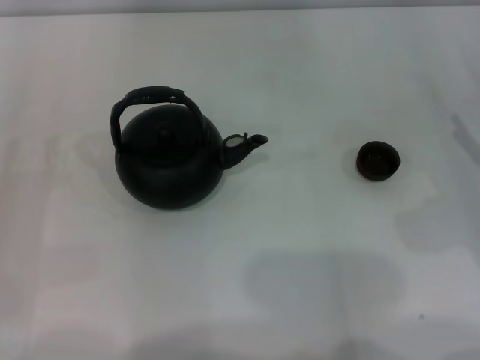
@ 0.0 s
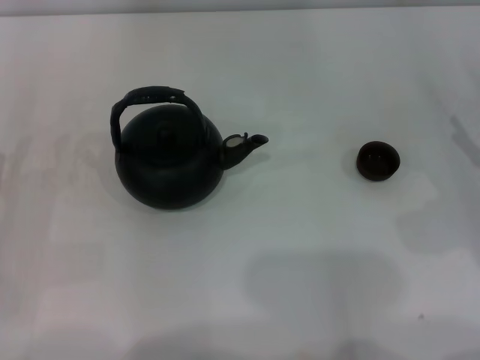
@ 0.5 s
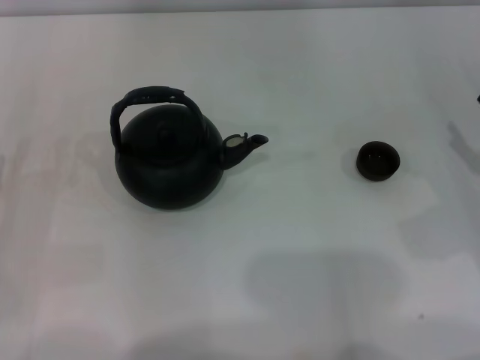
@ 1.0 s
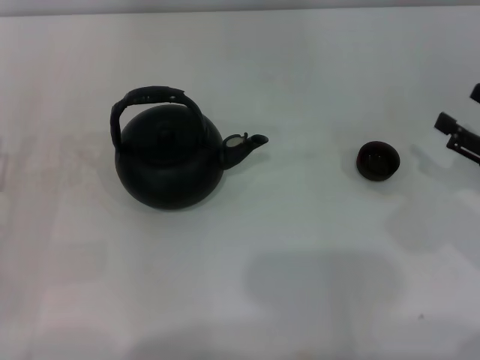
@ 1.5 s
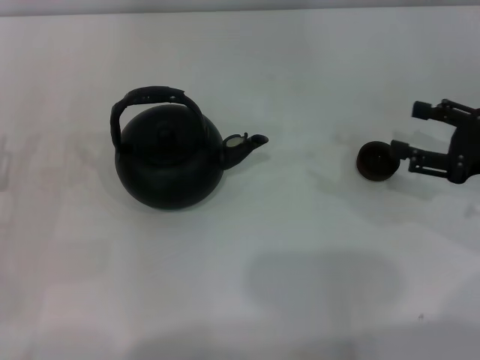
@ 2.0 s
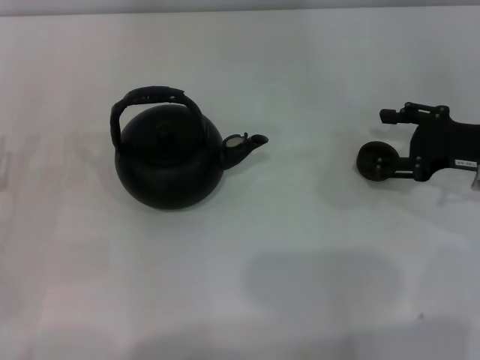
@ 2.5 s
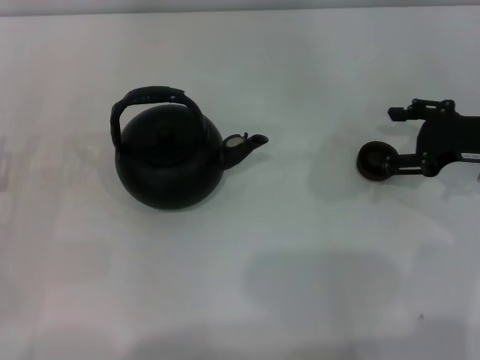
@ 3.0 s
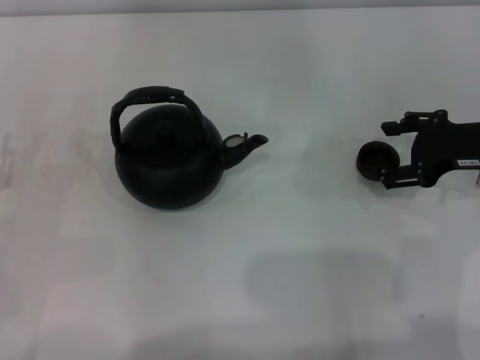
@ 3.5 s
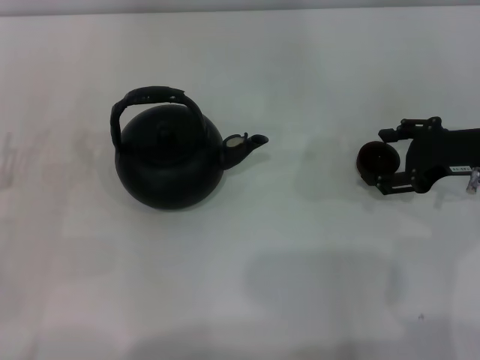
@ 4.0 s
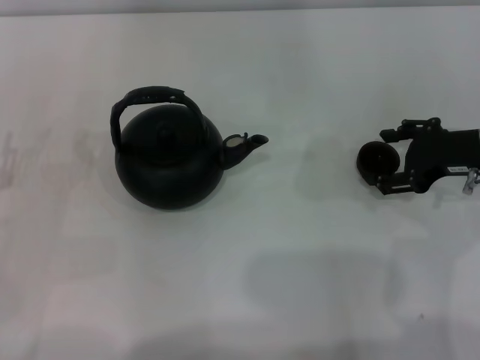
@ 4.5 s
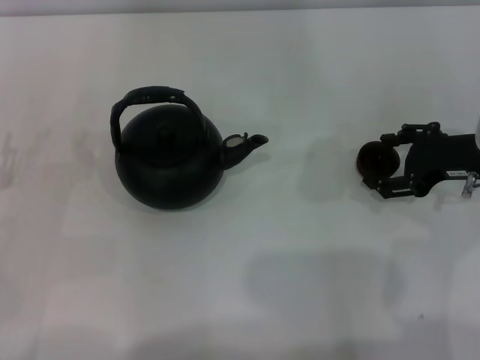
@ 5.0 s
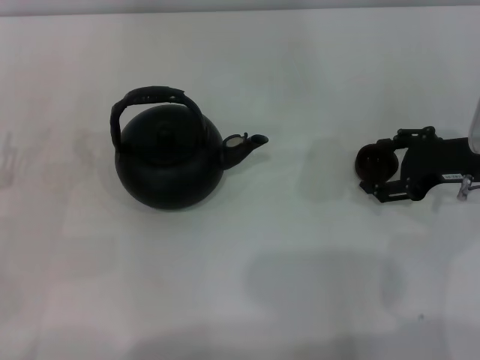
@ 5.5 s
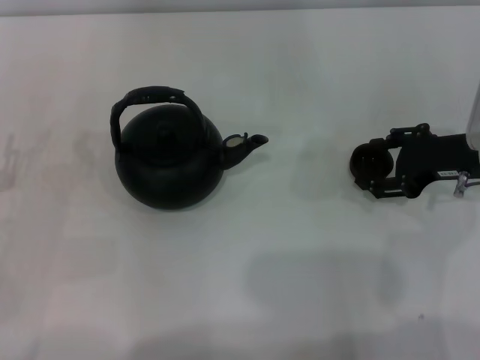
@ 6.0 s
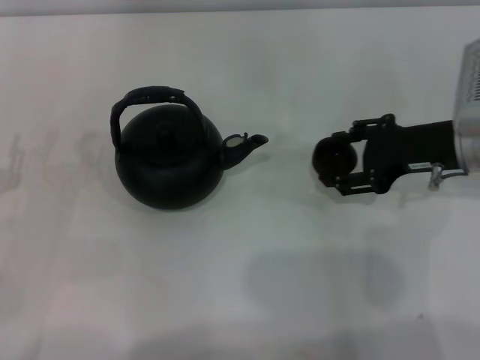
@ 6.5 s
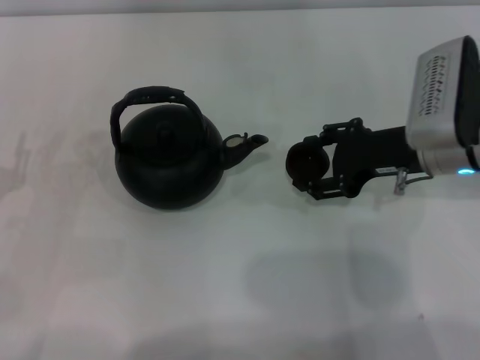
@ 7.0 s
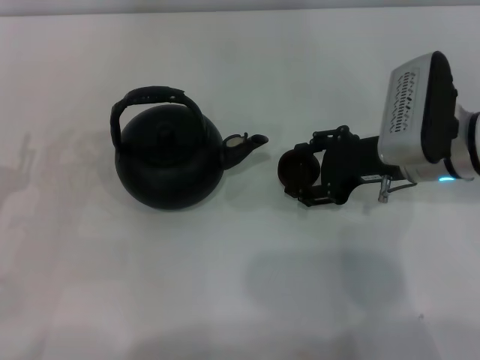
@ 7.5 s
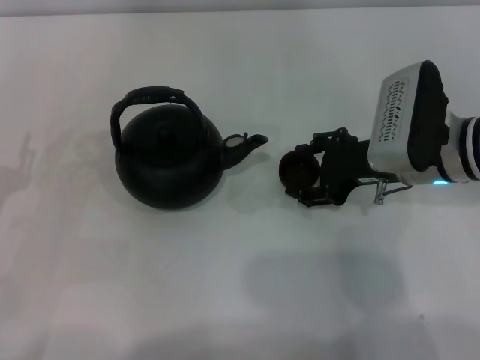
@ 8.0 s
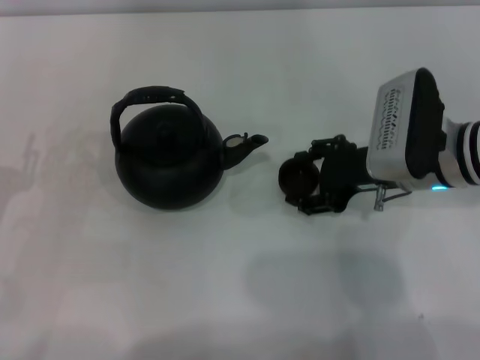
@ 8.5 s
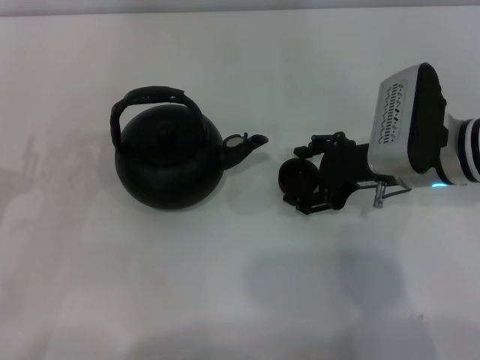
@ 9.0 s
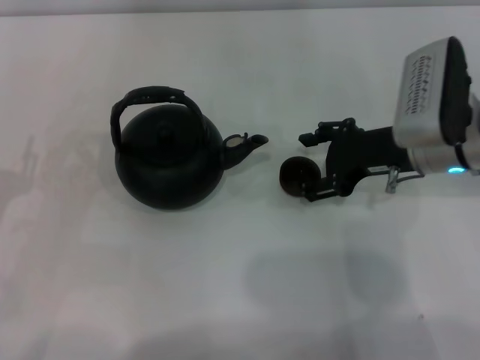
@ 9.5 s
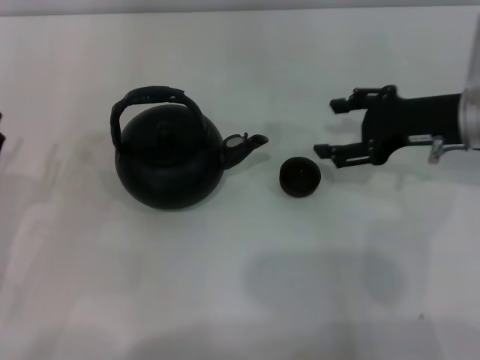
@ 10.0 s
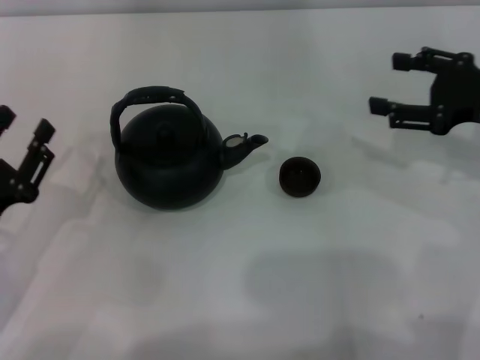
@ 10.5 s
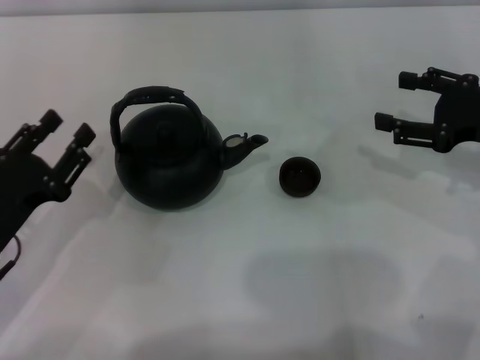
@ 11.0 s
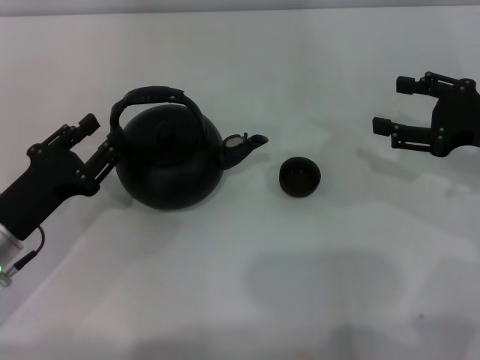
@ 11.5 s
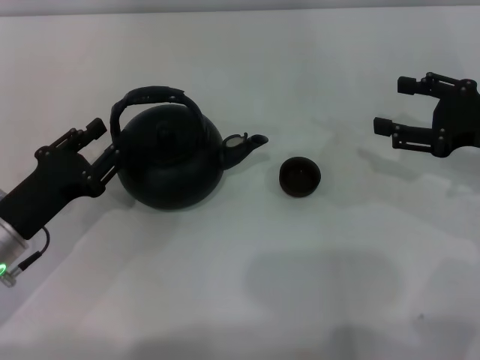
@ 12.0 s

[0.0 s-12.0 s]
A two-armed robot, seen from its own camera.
Task of the whole recording: Grasp the handle of the teapot with one hand and pour tea into the teacup.
Step, 0.0 to 6.0 s: Pick up the teacup with the right gripper.
Step, 6.5 to 10.0 s: Place the teacup in the center of view with the right gripper.
0.0 to 2.0 s: The right gripper changes place by roughly 5 cm.
2.0 to 4.0 s: The right gripper changes place by approximately 5 cm.
4.0 to 6.0 s: The grippers stay close to where they were, moving slightly.
6.0 to 8.0 s: The right gripper is displaced to the left by about 10 cm.
8.0 to 10.0 s: The right gripper heads to the right, covering some 5 cm.
10.0 to 12.0 s: The left gripper ends up roughly 5 cm from where it was, while the right gripper goes approximately 5 cm to the right.

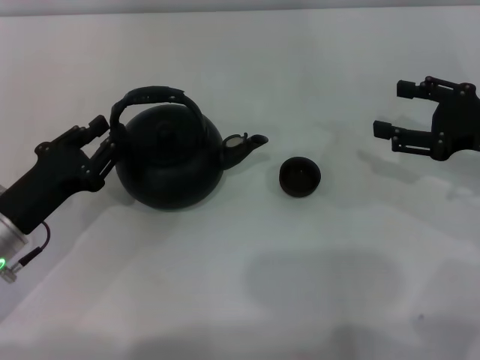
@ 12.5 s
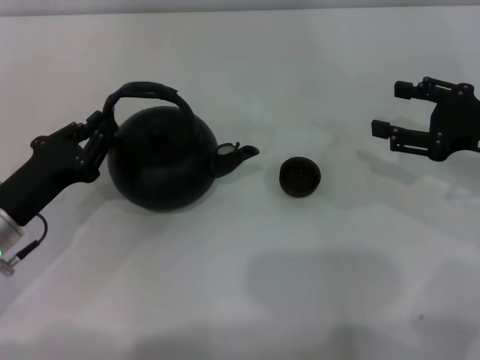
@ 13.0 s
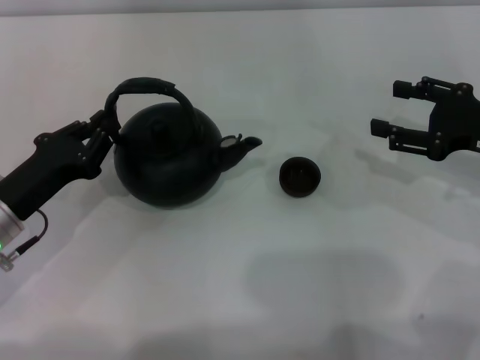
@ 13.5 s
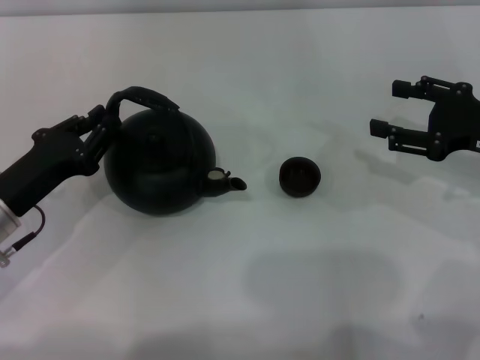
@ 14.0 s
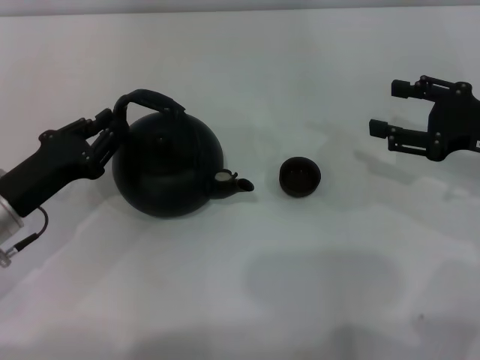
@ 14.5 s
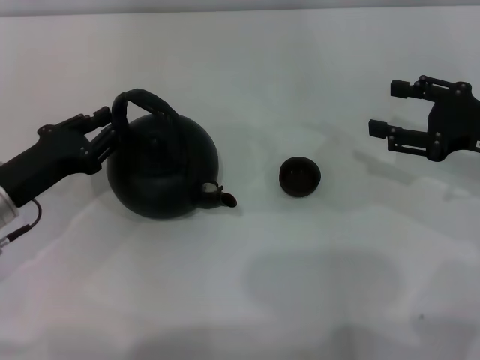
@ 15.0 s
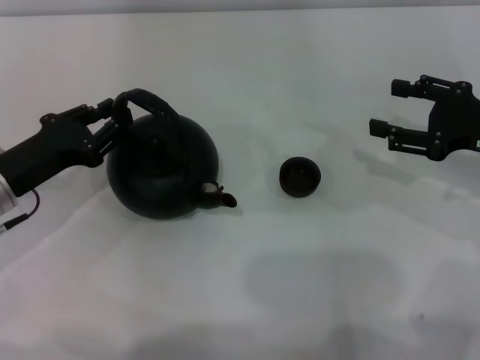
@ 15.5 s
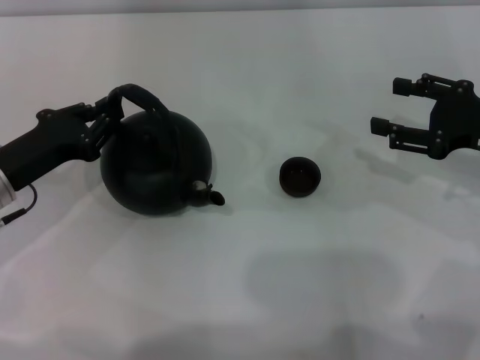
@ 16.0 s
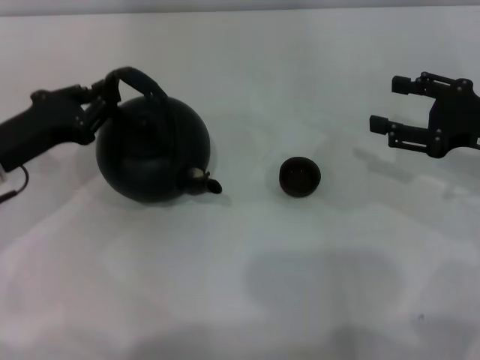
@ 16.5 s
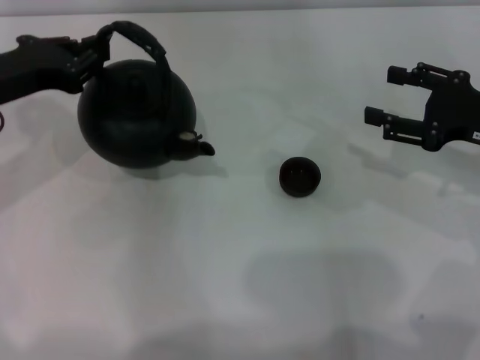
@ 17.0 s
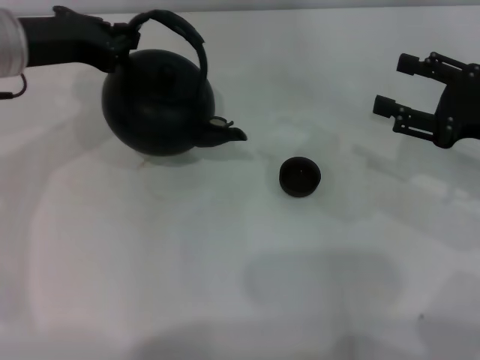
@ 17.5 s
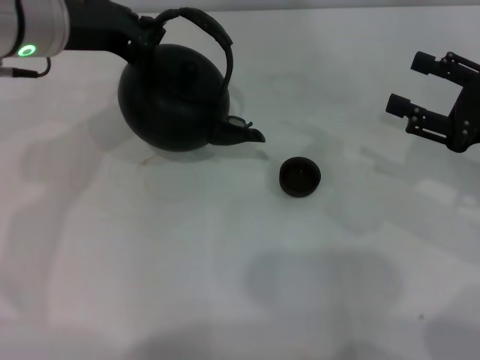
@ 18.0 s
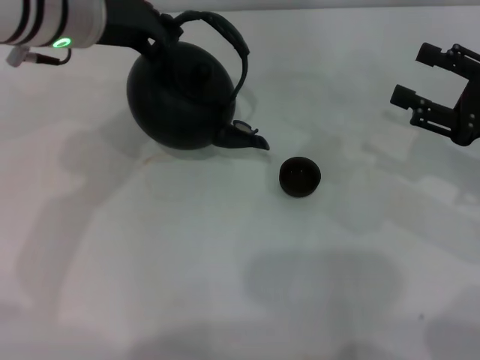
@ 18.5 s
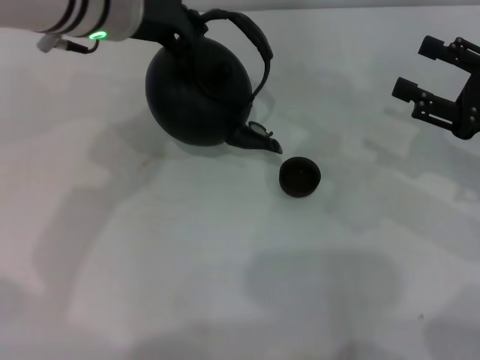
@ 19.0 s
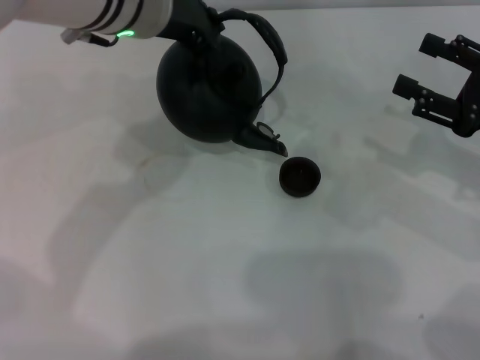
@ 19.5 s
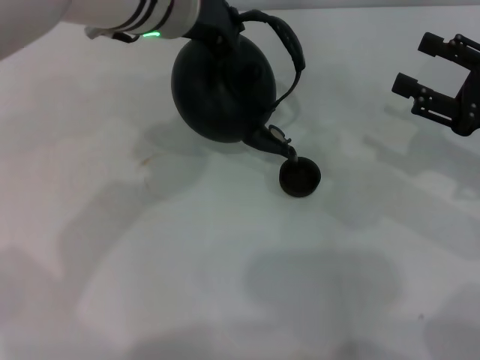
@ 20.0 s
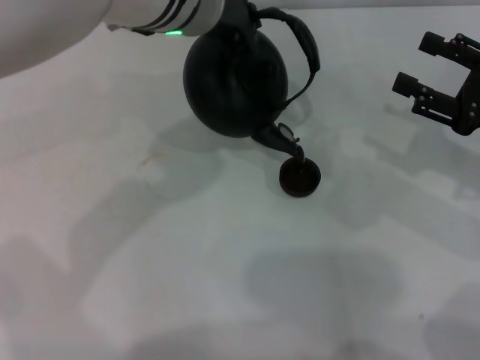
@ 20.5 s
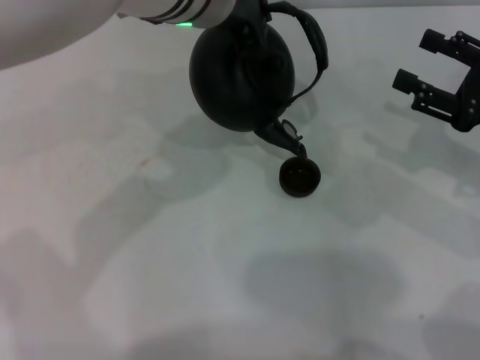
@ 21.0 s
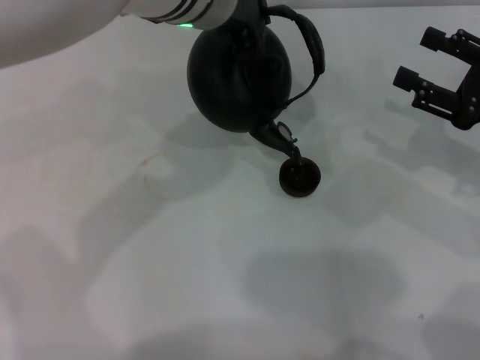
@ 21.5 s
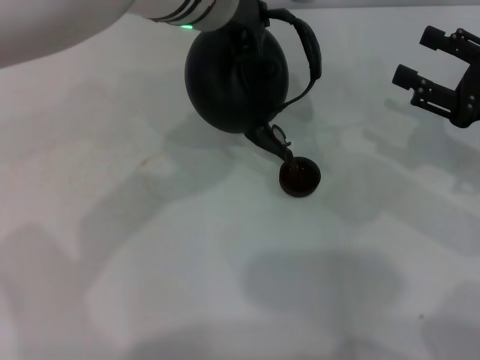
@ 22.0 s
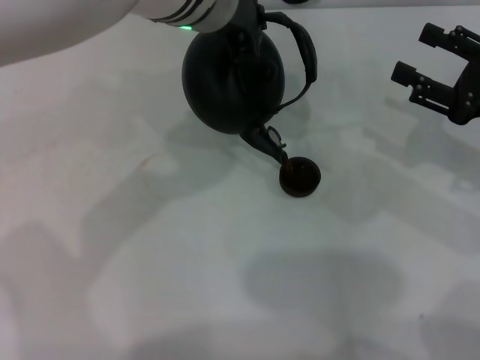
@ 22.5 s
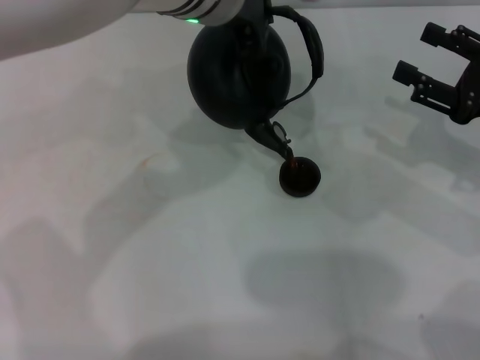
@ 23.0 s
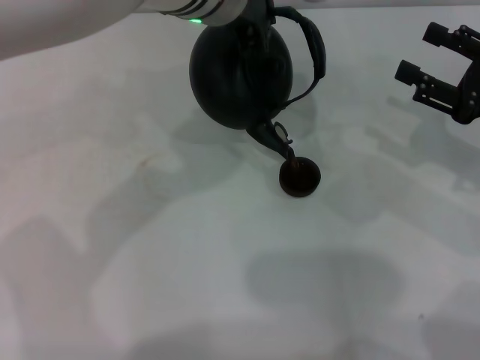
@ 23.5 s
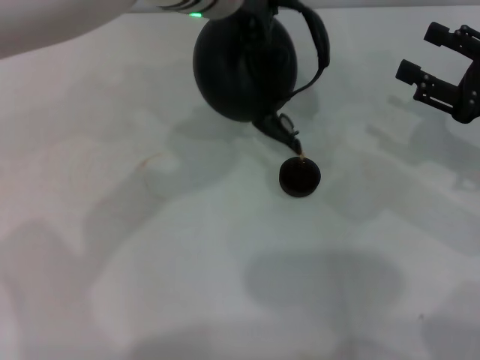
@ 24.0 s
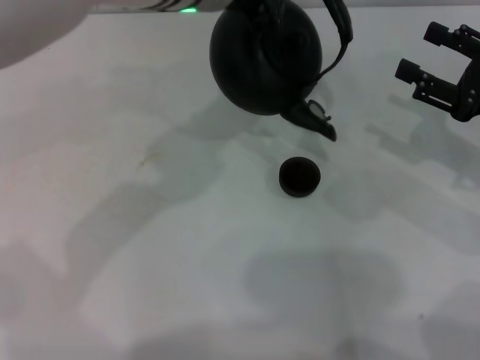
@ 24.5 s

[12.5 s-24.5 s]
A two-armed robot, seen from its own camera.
Task of the whole recording: Grasp the handle of the teapot with one hand and pour tea into the teacup.
Step, 12.5 to 17.5 s: Pick up the teapot with the left gripper.
12.5 to 14.5 s: The left gripper closes up.
14.5 to 16.5 s: The left gripper changes place by some 5 cm.
16.5 to 18.5 s: The left gripper moves upward, to the right and forward, roughly 20 cm.
18.5 to 20.5 s: The left gripper moves to the right, about 10 cm.
20.5 to 24.5 s: The grippers make only small movements.

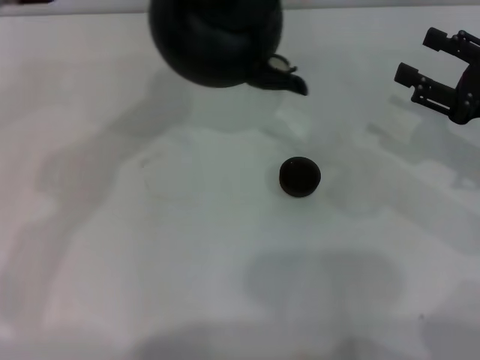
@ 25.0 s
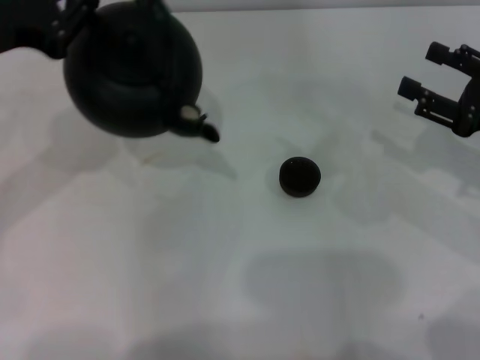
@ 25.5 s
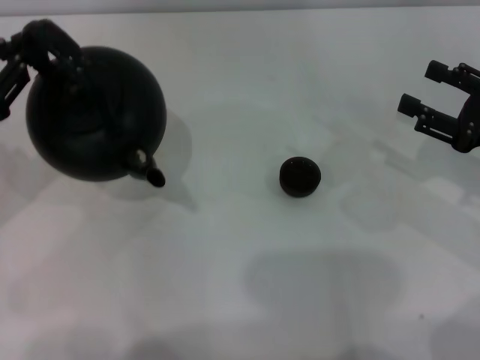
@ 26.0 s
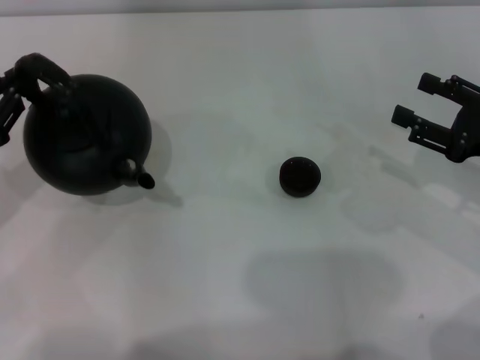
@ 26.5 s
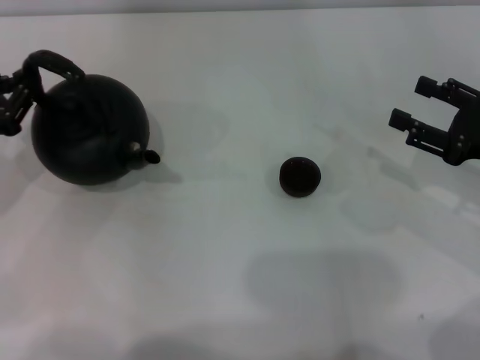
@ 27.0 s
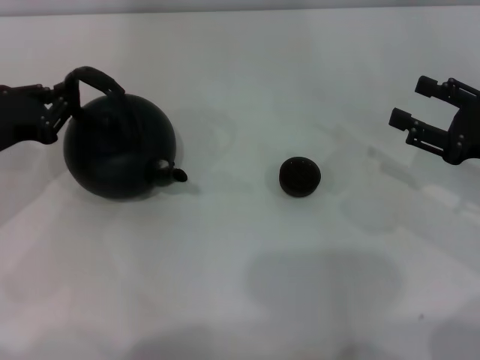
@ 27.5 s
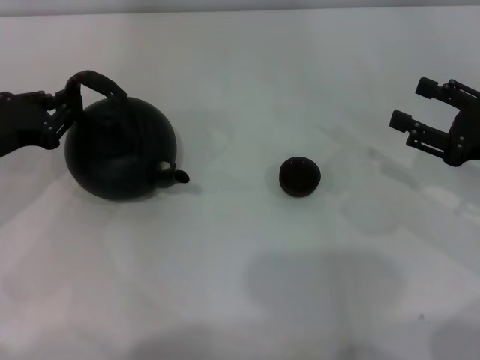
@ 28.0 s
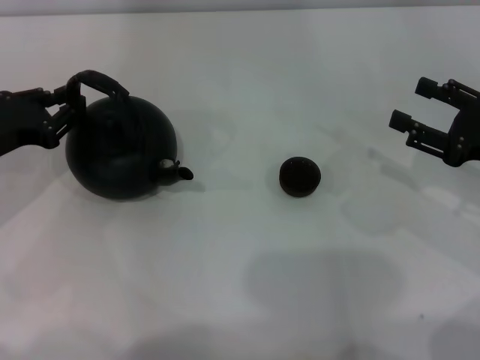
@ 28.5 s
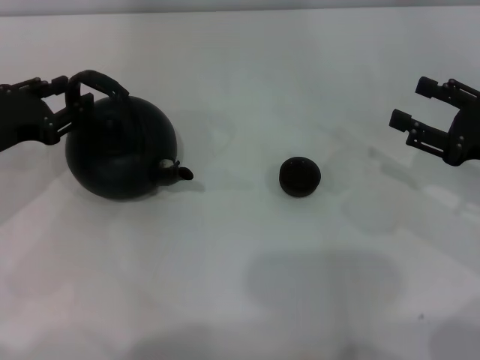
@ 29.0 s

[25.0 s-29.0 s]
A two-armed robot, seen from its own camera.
Task of the whole recording: Grasp the handle of the teapot with one hand and pour tea into the teacup.
25.0 to 27.0 s: The left gripper heads to the left and downward, covering about 25 cm.
27.0 to 29.0 s: The left gripper opens up.
